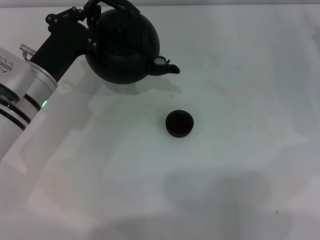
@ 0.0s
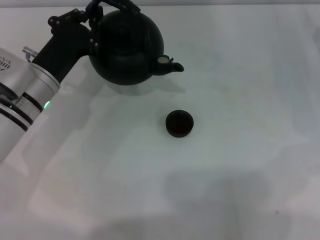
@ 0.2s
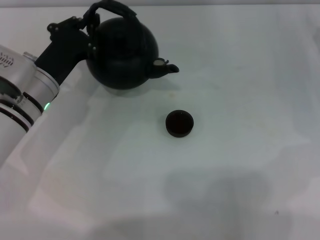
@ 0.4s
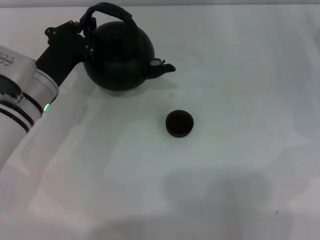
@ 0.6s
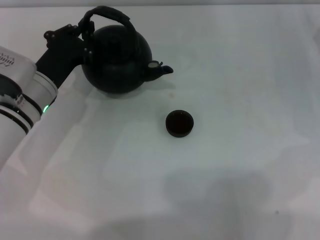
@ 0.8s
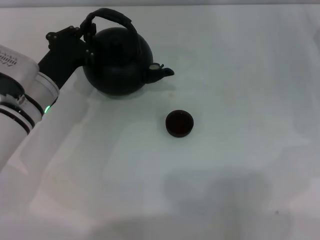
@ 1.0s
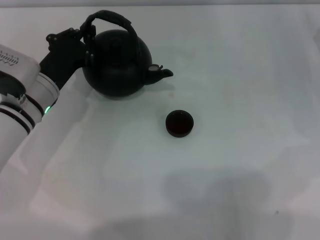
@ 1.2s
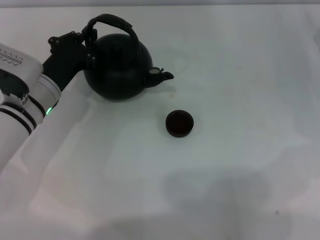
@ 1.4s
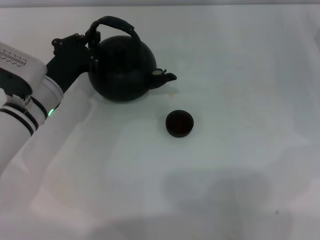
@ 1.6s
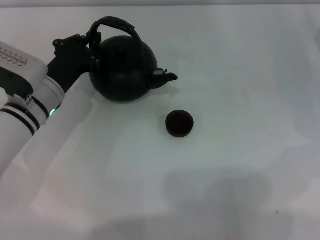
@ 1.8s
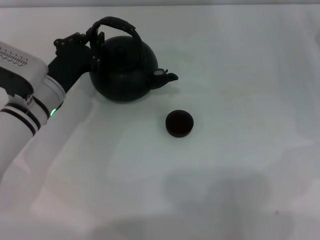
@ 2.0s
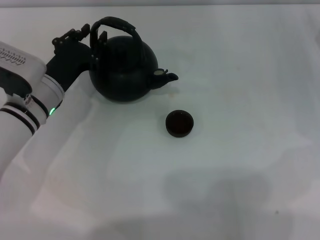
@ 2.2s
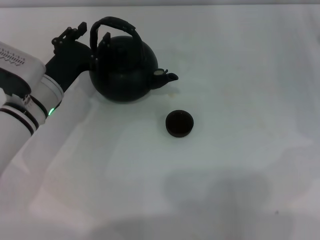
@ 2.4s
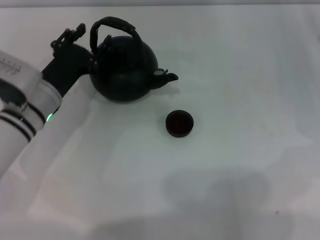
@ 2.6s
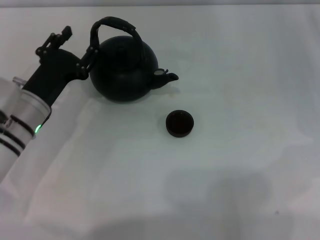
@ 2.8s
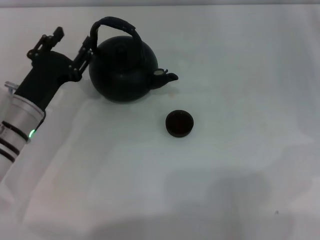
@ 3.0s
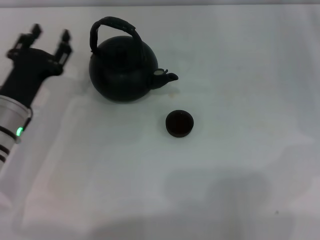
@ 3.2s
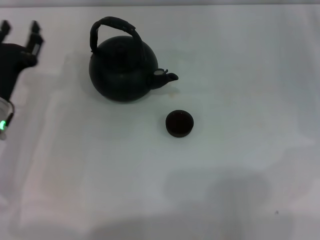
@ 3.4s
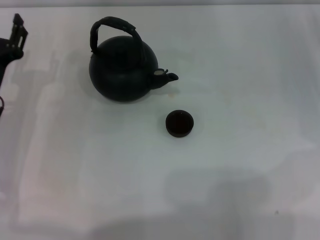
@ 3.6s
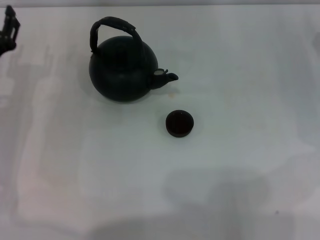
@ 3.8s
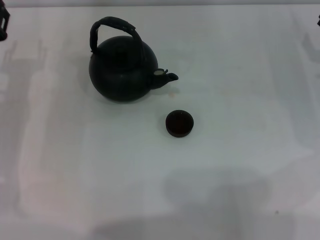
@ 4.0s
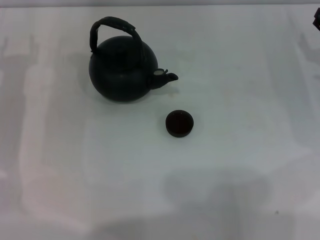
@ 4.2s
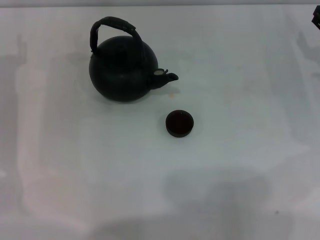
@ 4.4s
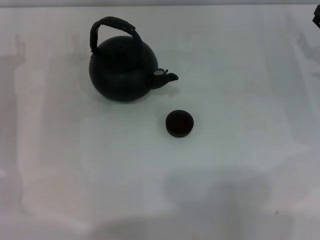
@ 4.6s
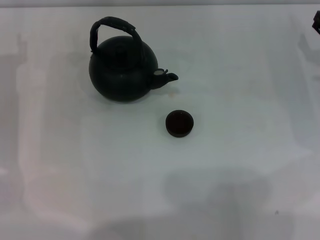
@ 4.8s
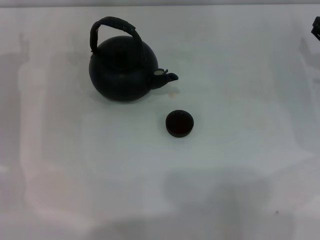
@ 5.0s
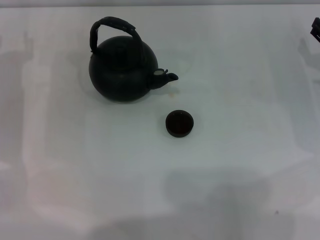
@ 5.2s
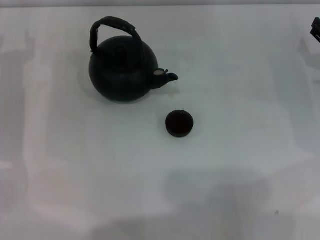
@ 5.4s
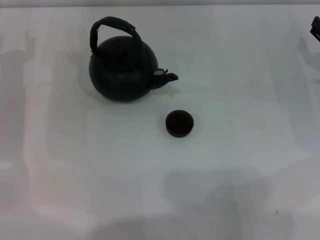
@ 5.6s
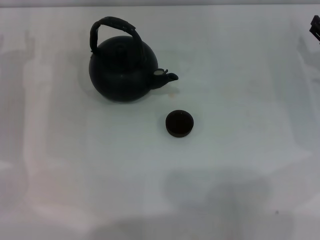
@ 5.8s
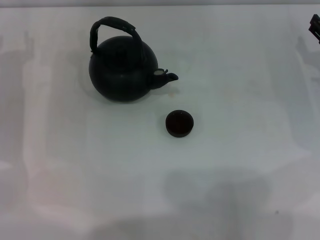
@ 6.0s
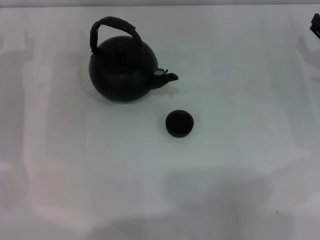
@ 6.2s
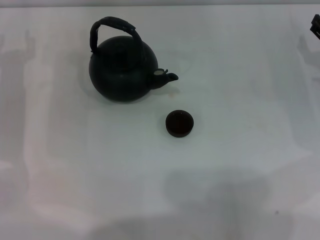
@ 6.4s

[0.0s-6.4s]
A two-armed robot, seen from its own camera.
Task of the whole recording: Grasp the handle of the teapot with one hand and pour tea into the teacup.
Step, 0.0s to 2.8s: Put down the teapot with the left gripper.
0.0s to 1.6s: The grippers make only small movements.
1.6s to 3.2s: The left gripper ends up approximately 5 cm from where it was, and opens up.
3.2s to 4.8s: The left gripper is displaced to the left by roughly 5 cm.
4.8s to 6.4s: Both grippers stay put.

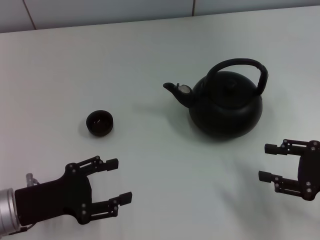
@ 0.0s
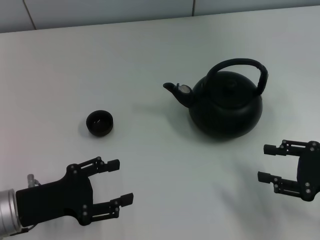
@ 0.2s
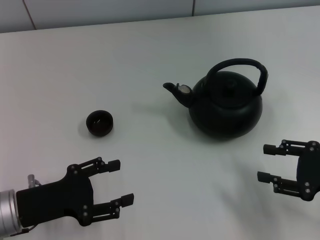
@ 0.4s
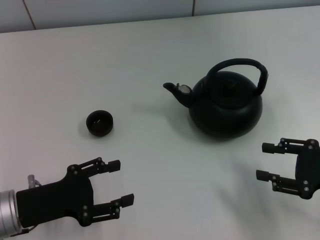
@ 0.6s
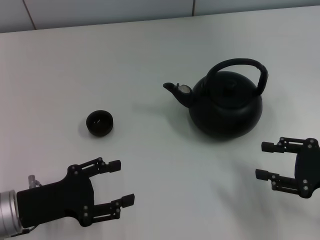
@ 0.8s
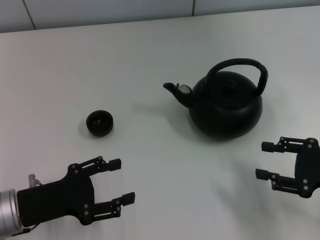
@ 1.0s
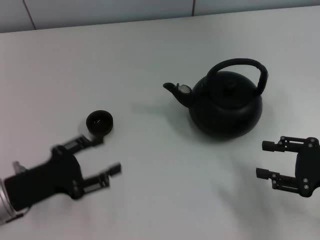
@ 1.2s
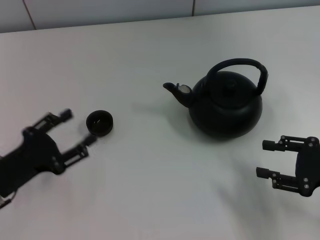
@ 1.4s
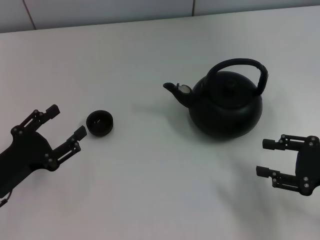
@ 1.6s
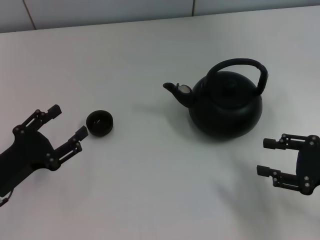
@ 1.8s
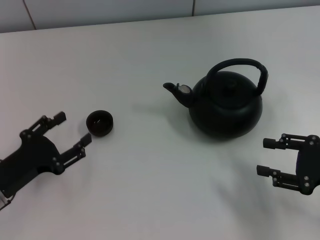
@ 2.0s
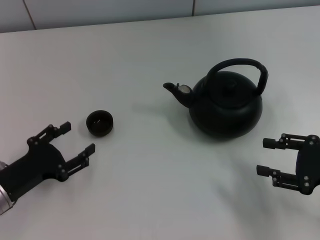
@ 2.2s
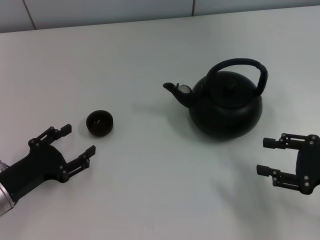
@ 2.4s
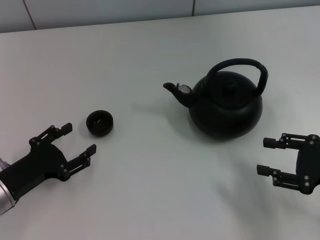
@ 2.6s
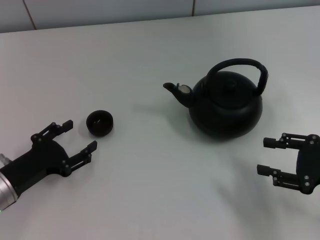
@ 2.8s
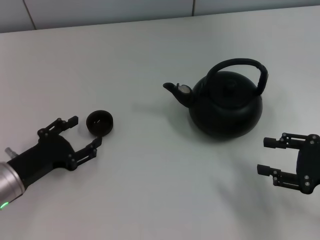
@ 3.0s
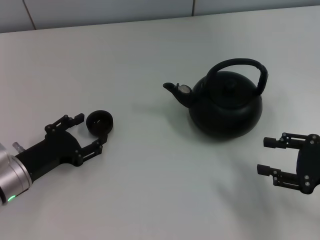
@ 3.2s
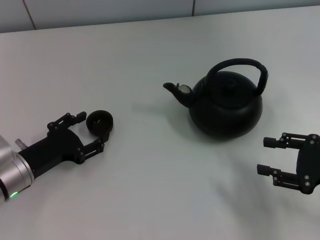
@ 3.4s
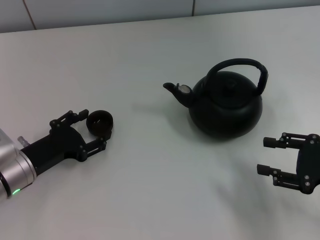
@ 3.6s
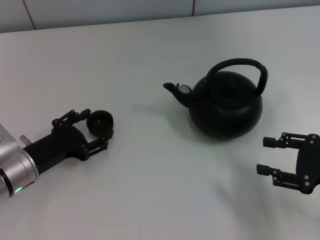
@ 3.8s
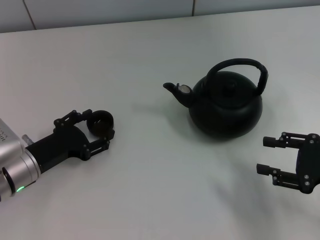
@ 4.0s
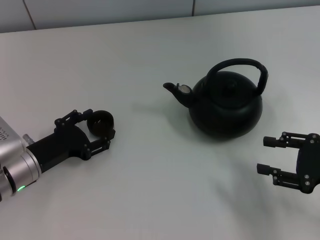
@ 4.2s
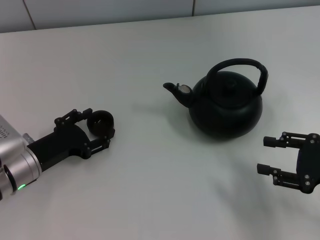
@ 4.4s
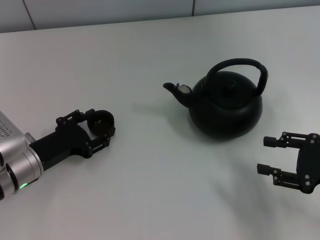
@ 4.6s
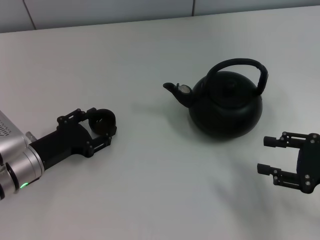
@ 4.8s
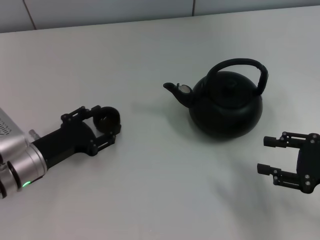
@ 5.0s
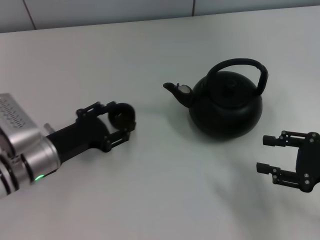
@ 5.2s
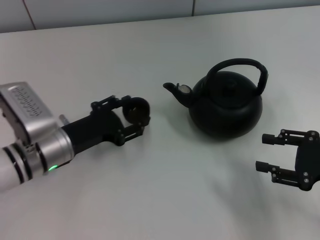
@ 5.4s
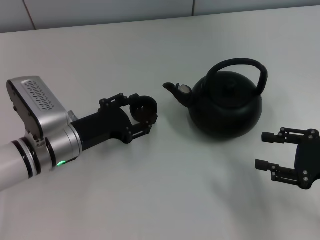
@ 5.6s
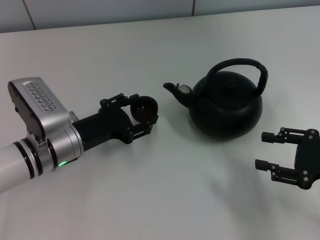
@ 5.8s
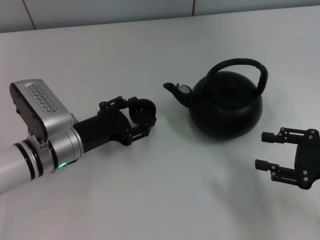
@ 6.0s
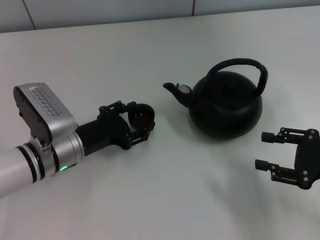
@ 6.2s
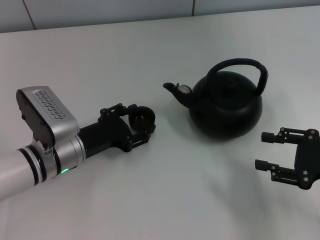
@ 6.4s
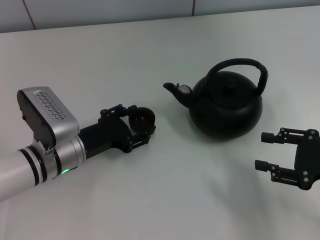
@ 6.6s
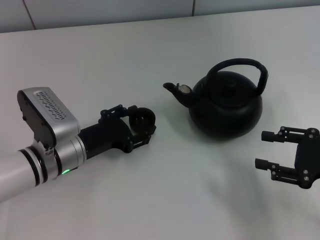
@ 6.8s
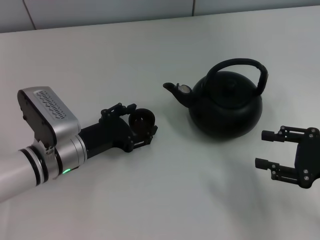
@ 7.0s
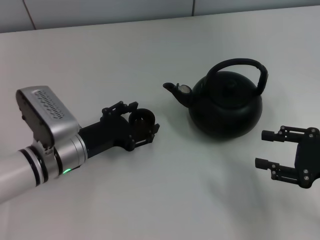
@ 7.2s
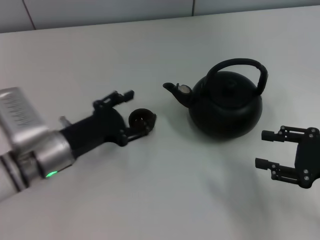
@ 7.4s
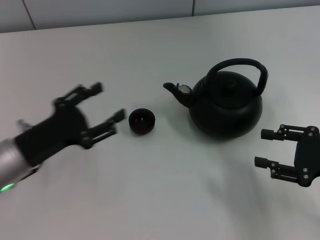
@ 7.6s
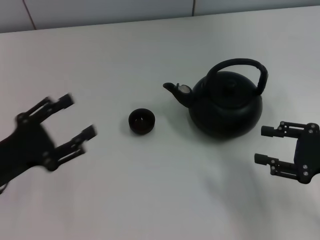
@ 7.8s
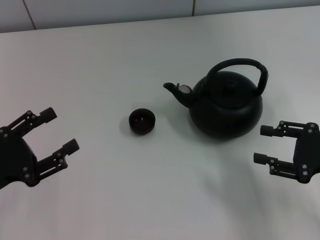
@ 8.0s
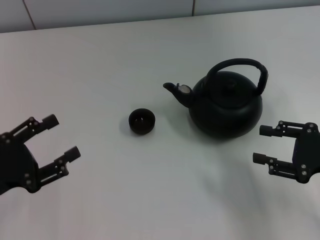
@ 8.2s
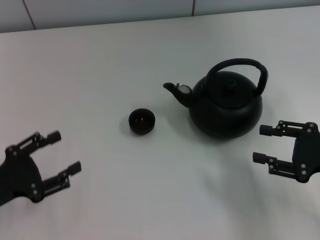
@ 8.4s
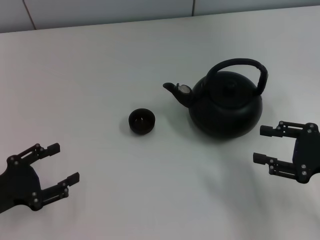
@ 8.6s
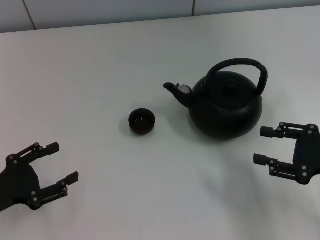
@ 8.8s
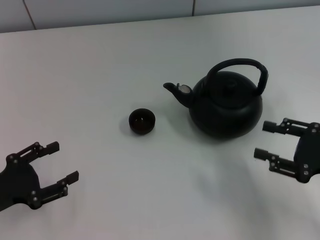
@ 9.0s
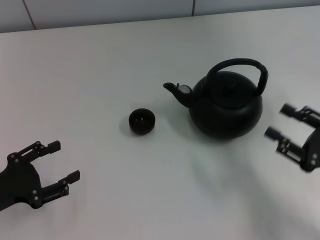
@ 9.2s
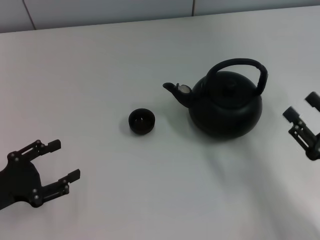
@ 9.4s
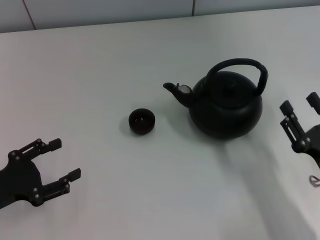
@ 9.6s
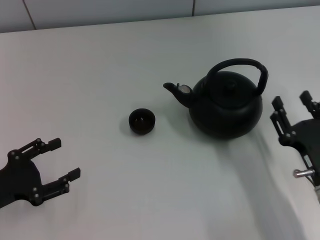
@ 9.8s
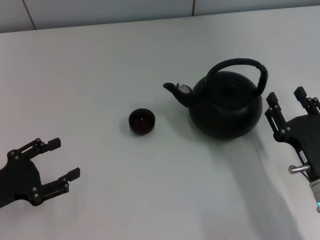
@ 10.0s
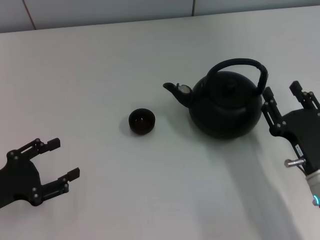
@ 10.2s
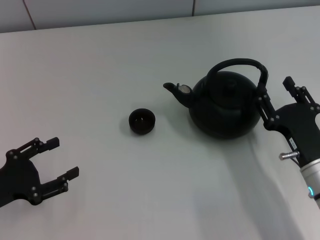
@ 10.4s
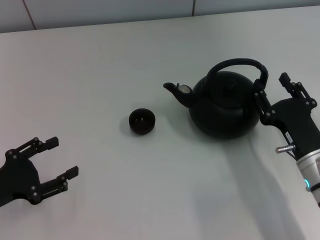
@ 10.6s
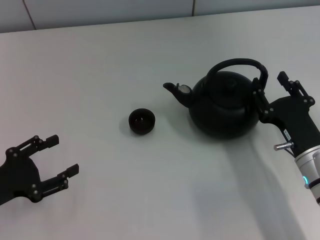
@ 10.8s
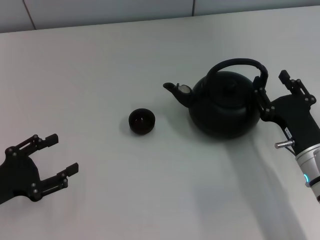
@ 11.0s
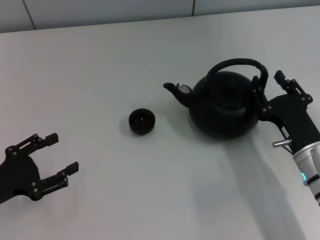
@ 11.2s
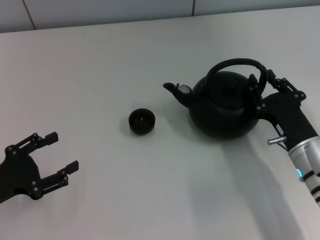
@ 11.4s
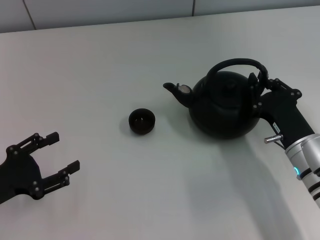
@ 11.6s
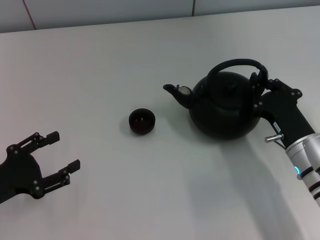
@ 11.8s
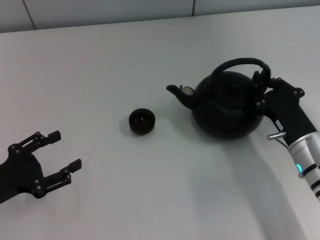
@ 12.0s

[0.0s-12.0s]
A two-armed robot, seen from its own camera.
Task of the whole recording: Grasp the handle of the teapot with one hand and pour tea into the teacup.
Step, 0.0s to 5.0s: Pick up the teacup with the left gripper.
Step, 5.4s to 7.6s: Place the teacup in the center of view with the left gripper.
1.6s to 3.0s: The grippers stay close to where they were, moving slightly.
3.0s to 4.4s: The grippers make only small movements.
4.4s to 6.0s: The left gripper heads to the right, covering about 5 cm.
6.0s to 7.6s: The left gripper is displaced to the left by roughly 5 cm.
7.6s to 9.0s: The left gripper moves to the left, some 5 cm.
9.0s to 10.4s: The right gripper heads to the left and downward, covering some 10 cm.
10.4s to 12.0s: The right gripper closes.

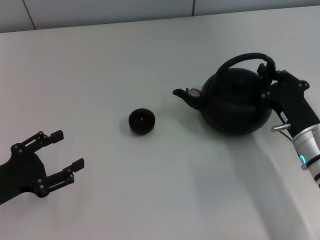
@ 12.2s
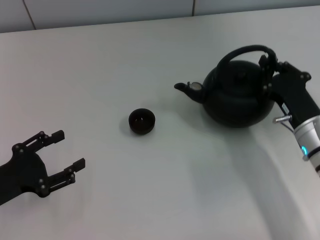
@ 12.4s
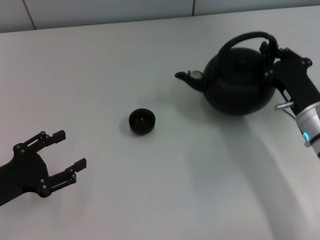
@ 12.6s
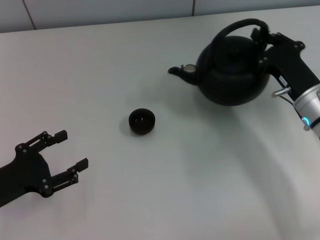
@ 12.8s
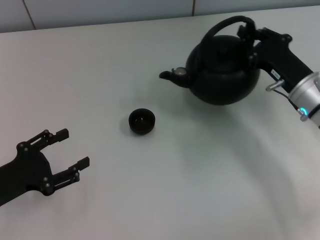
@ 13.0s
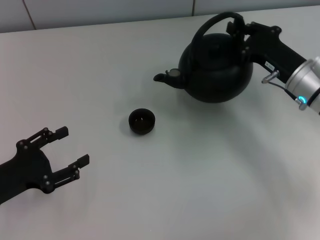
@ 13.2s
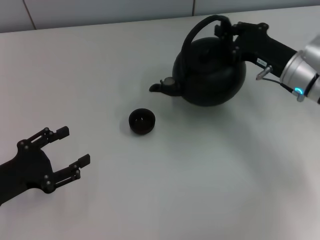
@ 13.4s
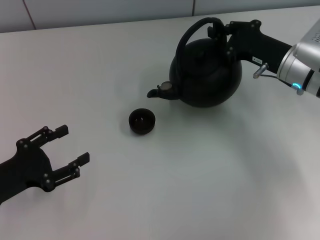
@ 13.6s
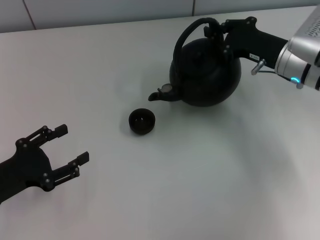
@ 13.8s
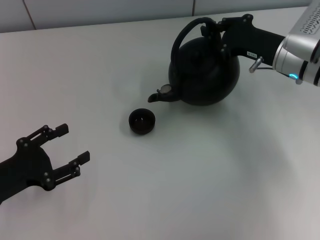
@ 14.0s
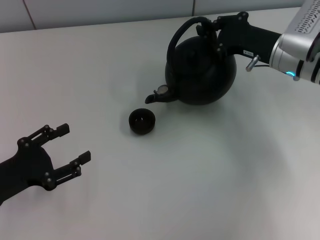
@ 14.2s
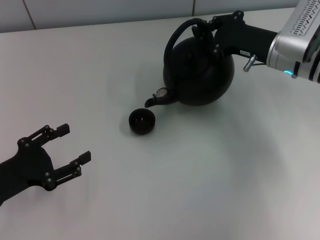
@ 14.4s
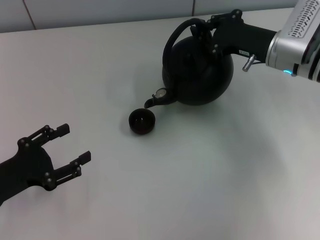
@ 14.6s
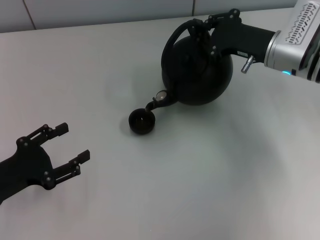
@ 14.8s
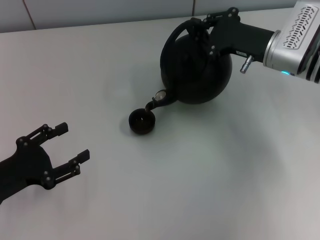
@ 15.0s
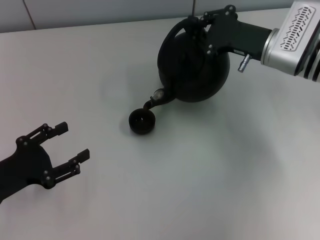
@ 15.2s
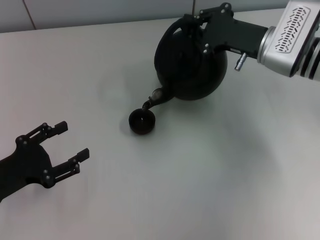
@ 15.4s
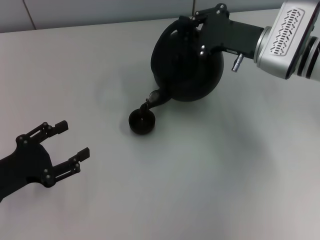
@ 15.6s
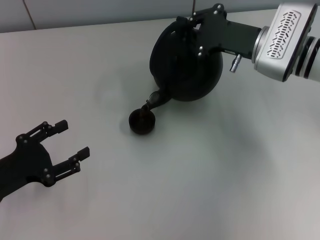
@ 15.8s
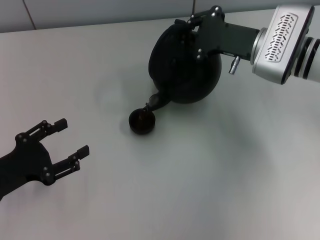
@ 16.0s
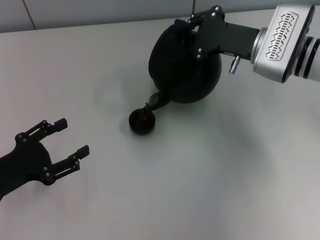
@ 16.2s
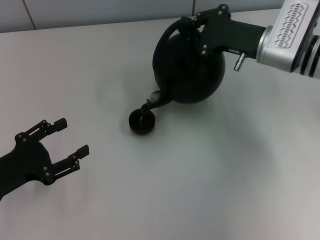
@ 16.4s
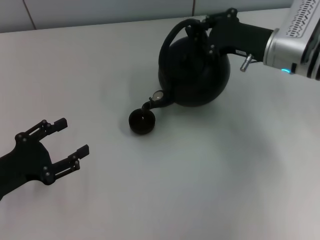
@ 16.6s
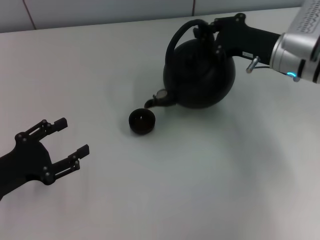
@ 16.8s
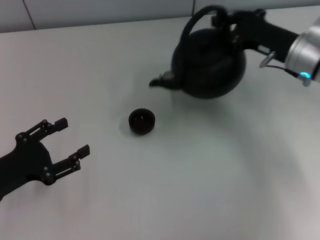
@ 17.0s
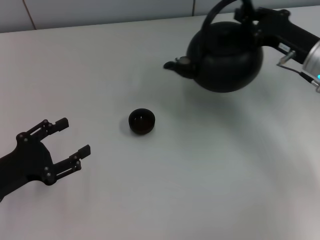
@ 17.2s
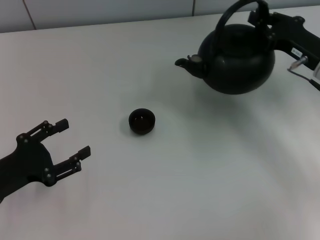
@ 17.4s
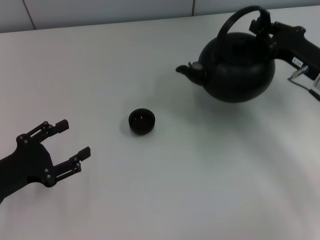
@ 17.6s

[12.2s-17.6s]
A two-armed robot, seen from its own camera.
Task of the whole recording: Grasp the handle of the teapot with one hand and pour tea into the teacup.
12.2s to 13.6s: The right gripper goes roughly 15 cm forward and upward.
13.6s to 15.0s: The grippers move only a little.
15.0s to 16.2s: The grippers make only small movements.
16.2s to 17.6s: The right gripper shifts roughly 10 cm to the right and backward.
